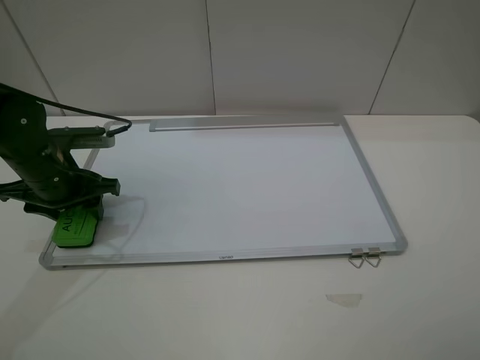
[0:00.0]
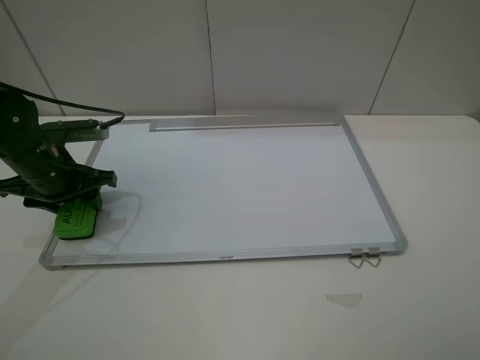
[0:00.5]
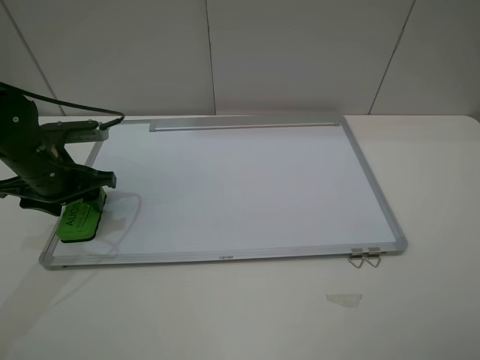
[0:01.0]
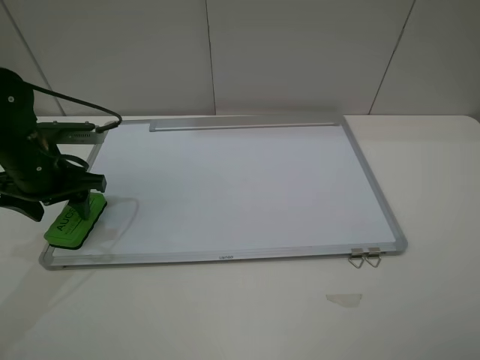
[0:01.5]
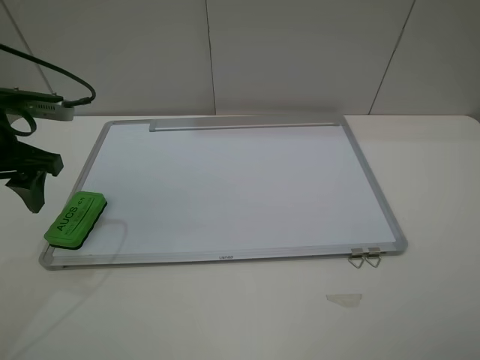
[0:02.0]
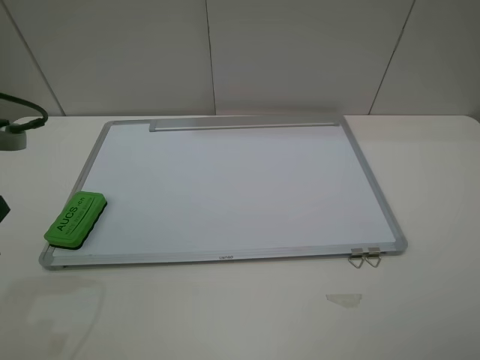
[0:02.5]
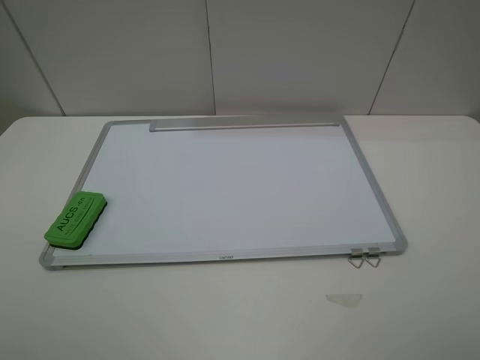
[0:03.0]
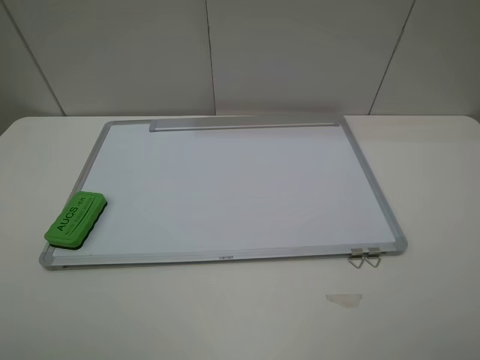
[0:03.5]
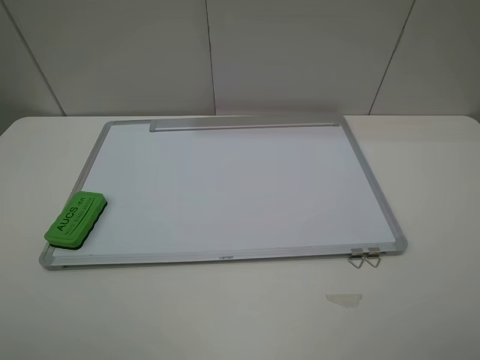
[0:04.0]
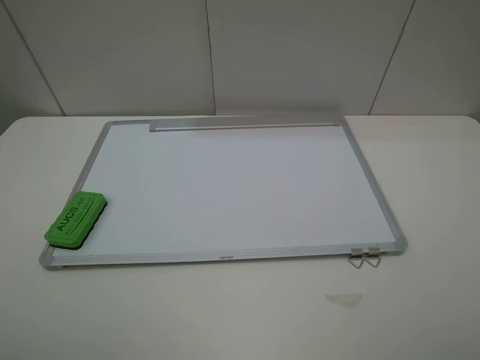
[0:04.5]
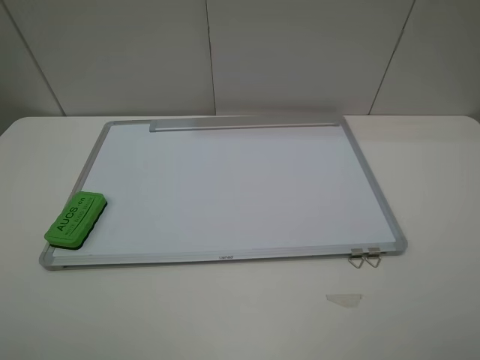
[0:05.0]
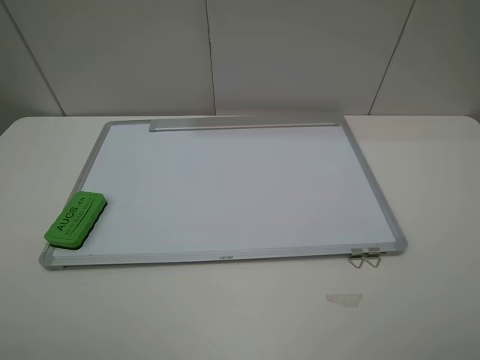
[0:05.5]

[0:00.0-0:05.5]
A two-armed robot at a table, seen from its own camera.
0:00.0 to 0:02.0: The left gripper is displaced upward by some 10 cm.
0:02.0 to 0:03.5: The left gripper shifts roughly 25 cm backward.
